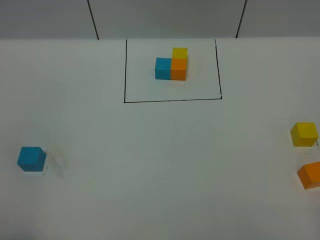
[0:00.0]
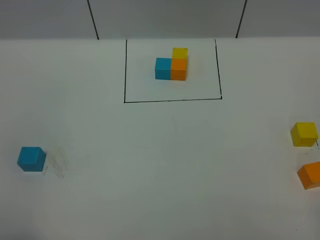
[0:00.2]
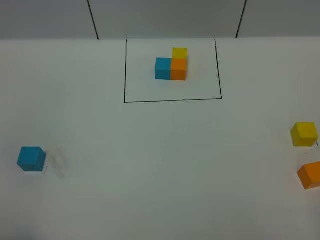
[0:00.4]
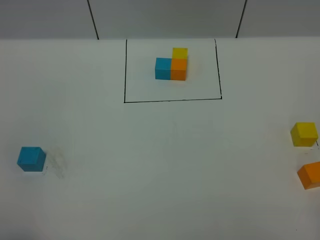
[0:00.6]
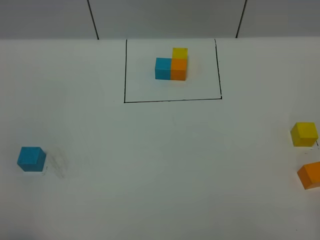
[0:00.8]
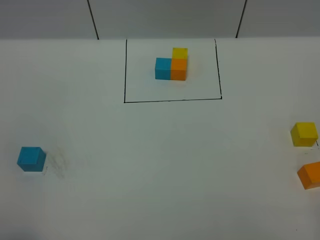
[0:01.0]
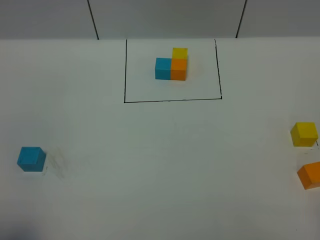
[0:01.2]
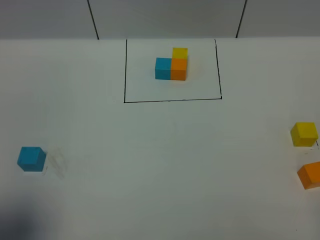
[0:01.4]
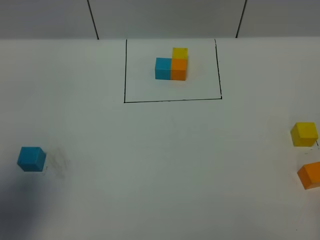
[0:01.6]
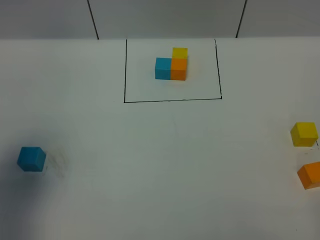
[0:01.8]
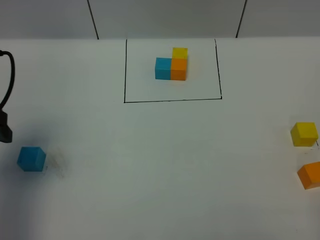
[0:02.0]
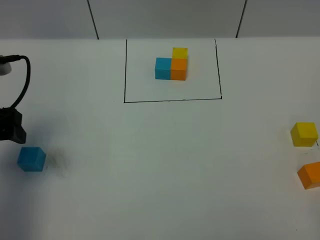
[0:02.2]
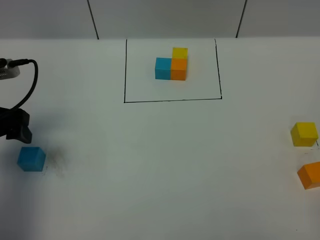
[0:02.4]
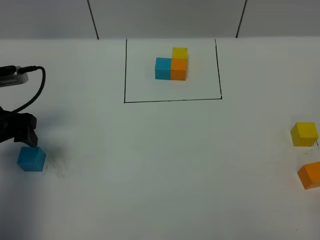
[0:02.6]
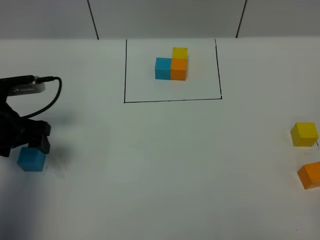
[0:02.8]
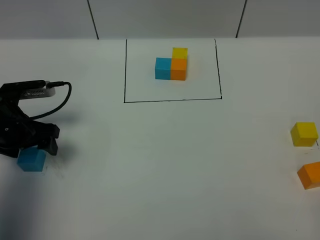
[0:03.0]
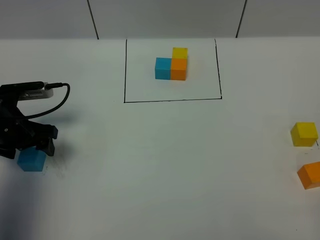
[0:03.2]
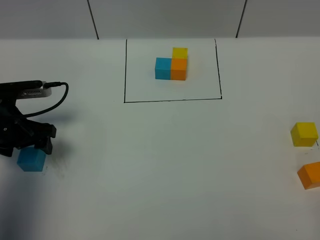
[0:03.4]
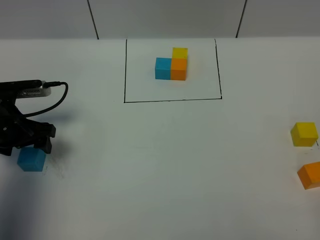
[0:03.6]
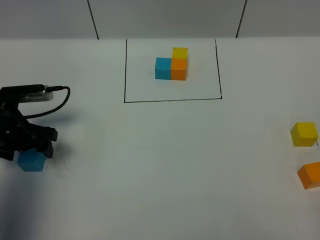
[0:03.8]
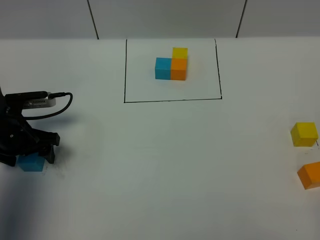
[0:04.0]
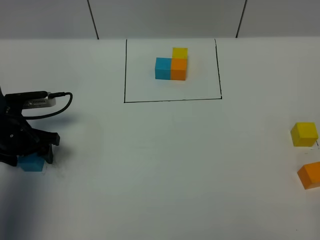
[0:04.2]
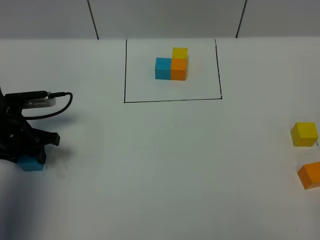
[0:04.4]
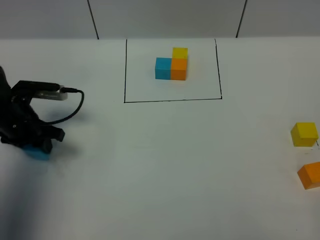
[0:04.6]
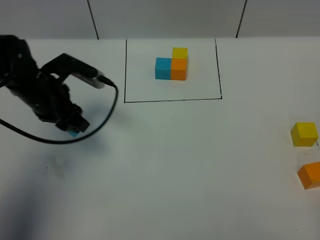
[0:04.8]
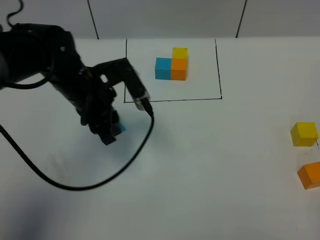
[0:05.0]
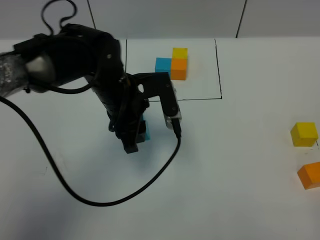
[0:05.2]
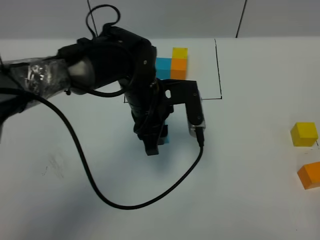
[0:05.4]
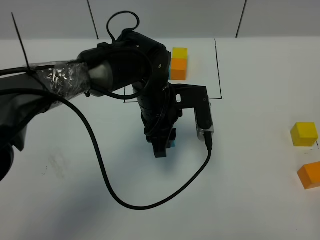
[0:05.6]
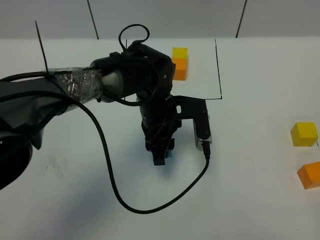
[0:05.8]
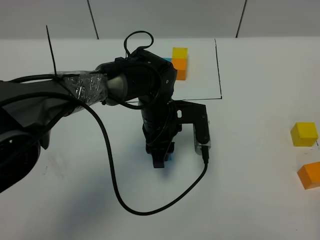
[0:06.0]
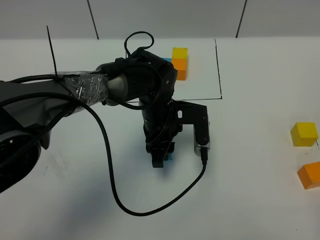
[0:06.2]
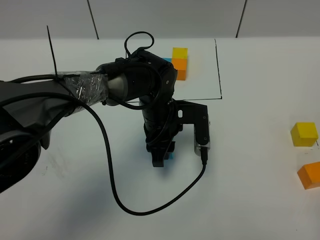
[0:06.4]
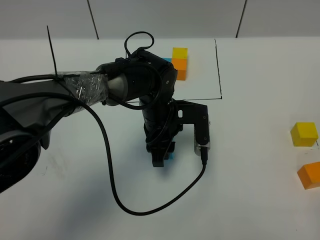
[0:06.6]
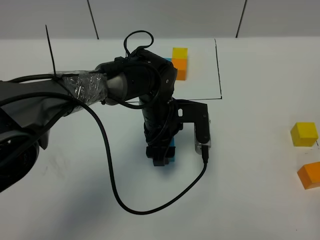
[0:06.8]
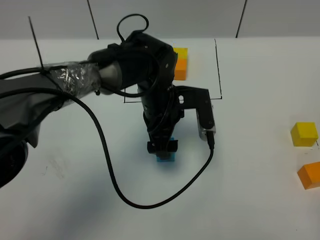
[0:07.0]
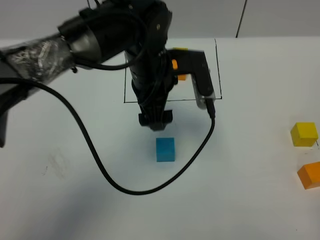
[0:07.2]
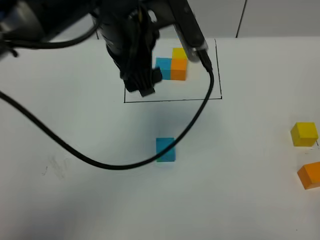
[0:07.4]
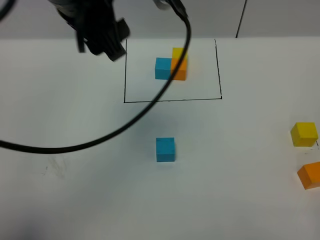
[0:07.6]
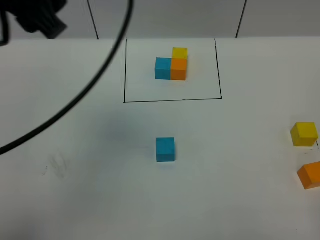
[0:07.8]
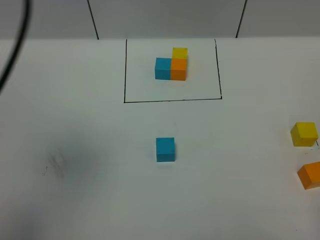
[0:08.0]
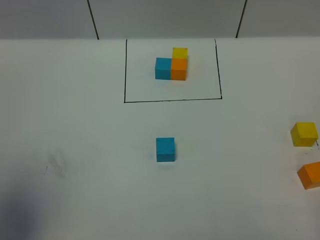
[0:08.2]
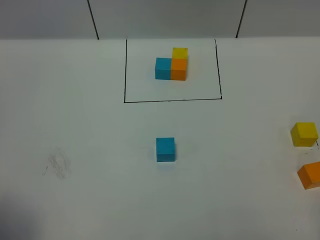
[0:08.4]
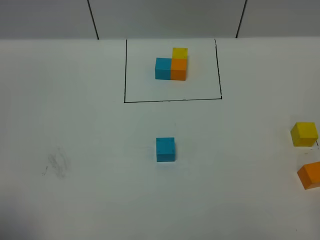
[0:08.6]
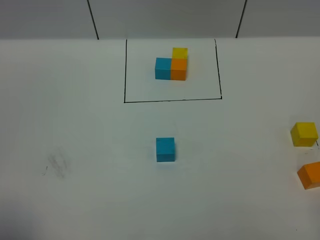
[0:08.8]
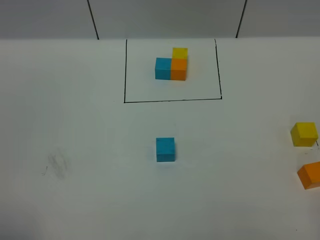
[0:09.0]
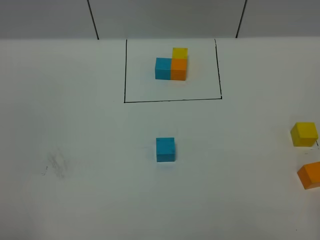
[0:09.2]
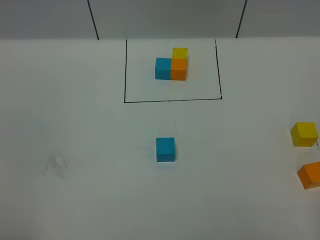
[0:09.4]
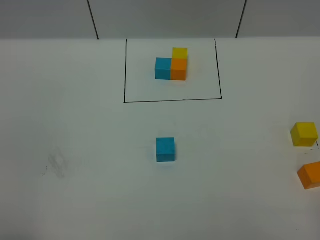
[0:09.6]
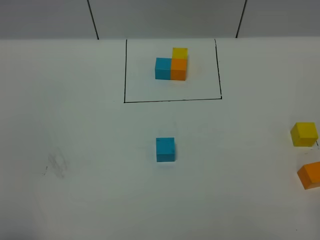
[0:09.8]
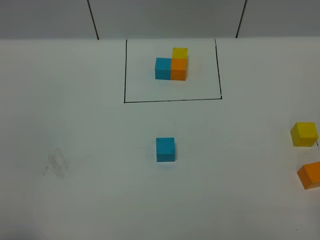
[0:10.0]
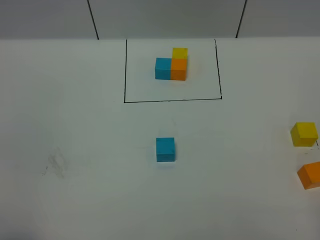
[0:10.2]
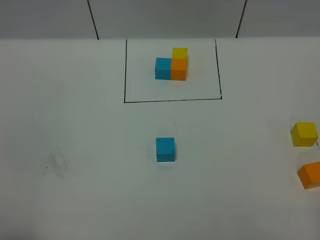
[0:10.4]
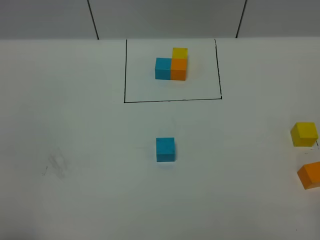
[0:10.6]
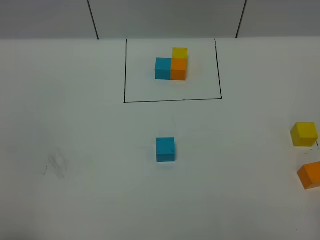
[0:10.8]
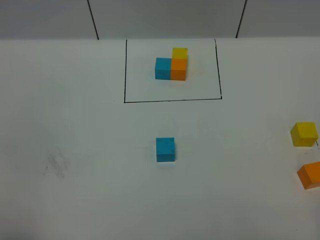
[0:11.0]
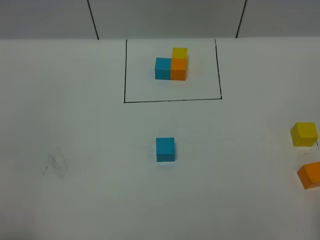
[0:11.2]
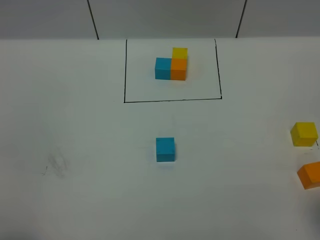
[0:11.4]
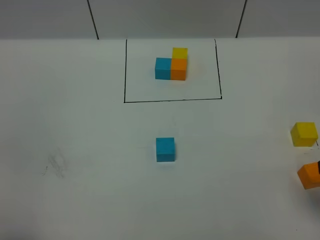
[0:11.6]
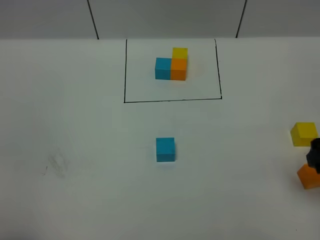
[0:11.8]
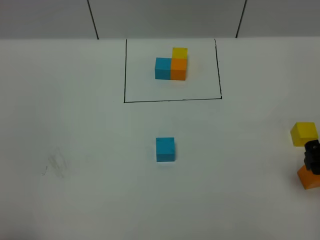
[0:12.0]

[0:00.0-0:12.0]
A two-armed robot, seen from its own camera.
Task of the whole recording: According to the building block template in front, assemble the scattered blocks together.
Step, 0:02.0 to 0:07.6: Put the blue cube in the center of the table.
0:00.0 to 0:01.6: The left gripper heads forward, covering roughly 15 cm, and opens.
0:01.6 to 0:03.0: The left gripper travels downward and forward by some 25 cm.
0:03.0 to 0:04.4: The left gripper closes its fingers.
0:04.4 to 0:06.0: The left gripper heads to the right, covering approximately 30 cm.
0:06.0 to 0:07.6: The left gripper travels upward by some 30 cm, and opens its fingers.
0:07.6 to 0:09.0: The left gripper is displaced backward and to the left by some 35 cm.
0:10.4 to 0:12.0: The right gripper goes approximately 20 cm forward, and opens up.

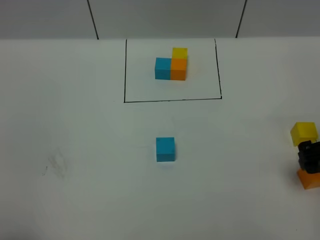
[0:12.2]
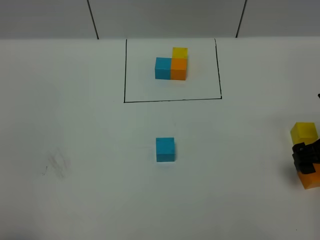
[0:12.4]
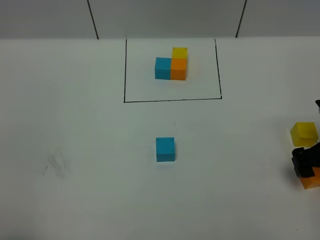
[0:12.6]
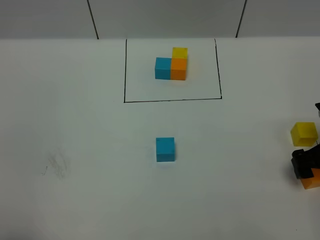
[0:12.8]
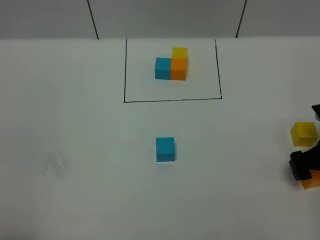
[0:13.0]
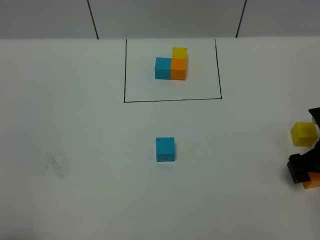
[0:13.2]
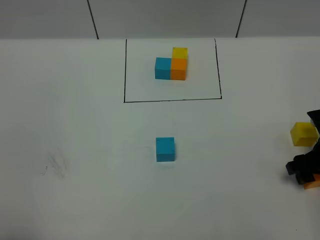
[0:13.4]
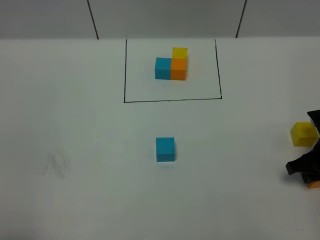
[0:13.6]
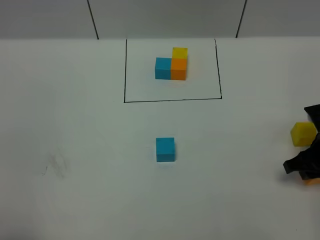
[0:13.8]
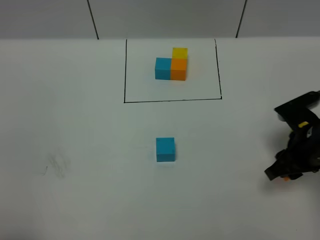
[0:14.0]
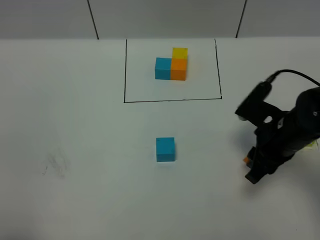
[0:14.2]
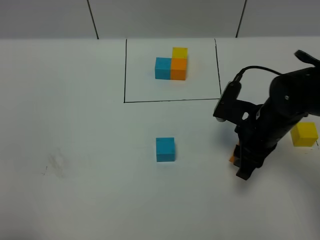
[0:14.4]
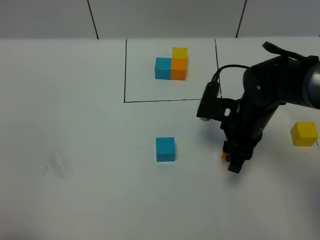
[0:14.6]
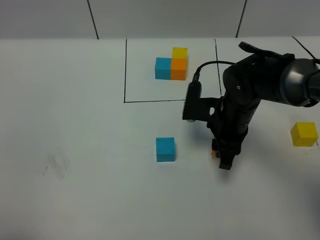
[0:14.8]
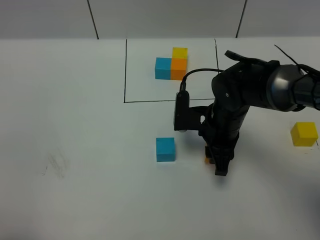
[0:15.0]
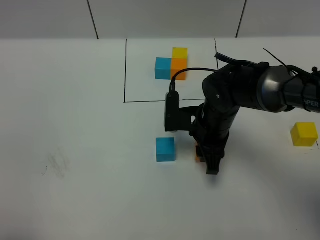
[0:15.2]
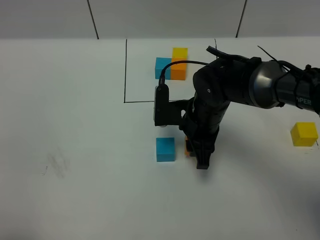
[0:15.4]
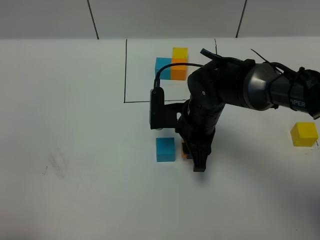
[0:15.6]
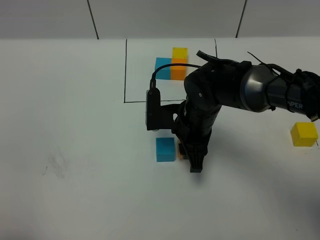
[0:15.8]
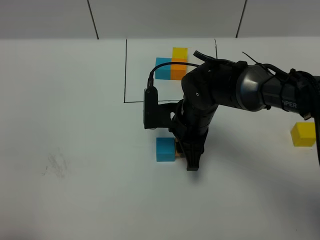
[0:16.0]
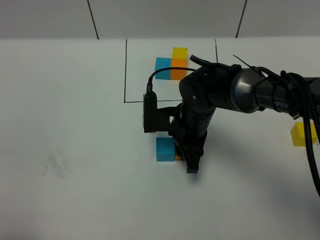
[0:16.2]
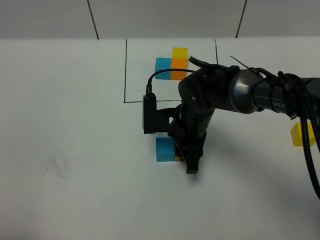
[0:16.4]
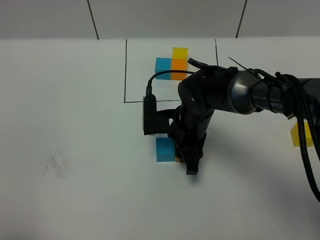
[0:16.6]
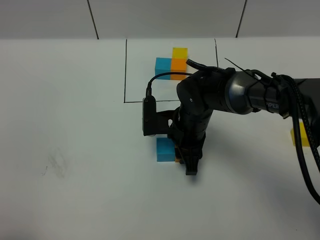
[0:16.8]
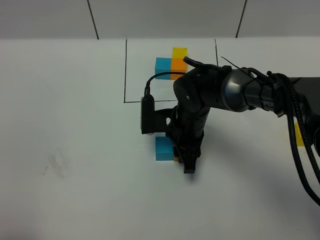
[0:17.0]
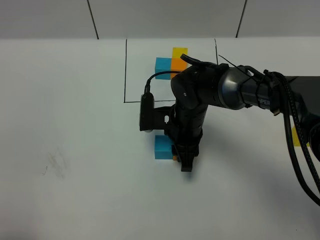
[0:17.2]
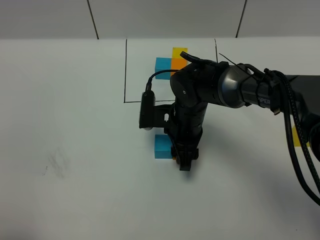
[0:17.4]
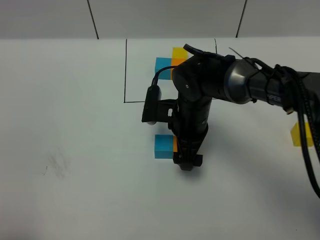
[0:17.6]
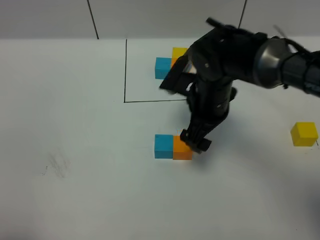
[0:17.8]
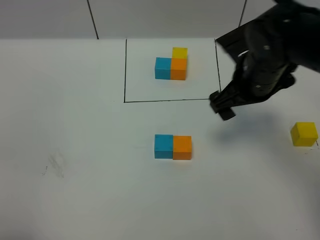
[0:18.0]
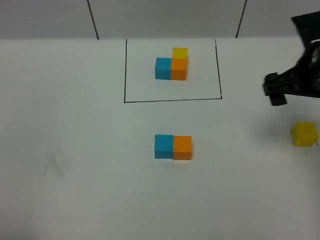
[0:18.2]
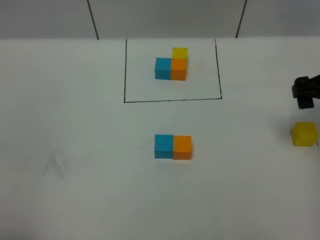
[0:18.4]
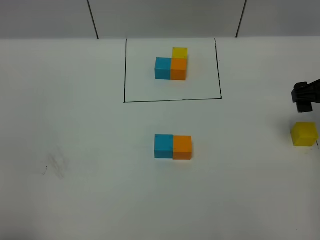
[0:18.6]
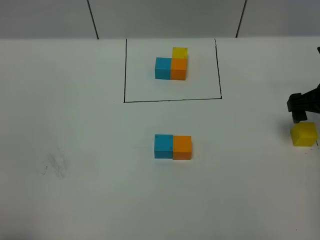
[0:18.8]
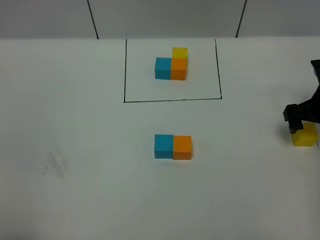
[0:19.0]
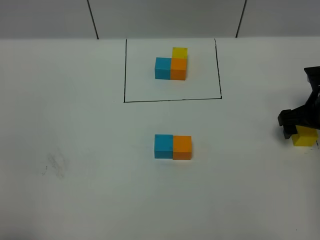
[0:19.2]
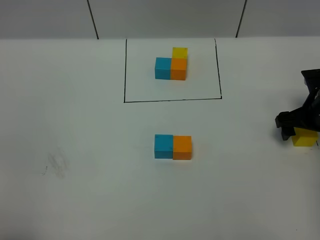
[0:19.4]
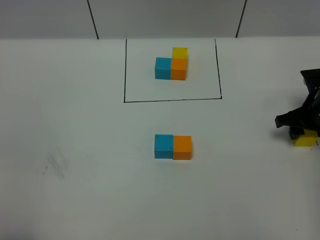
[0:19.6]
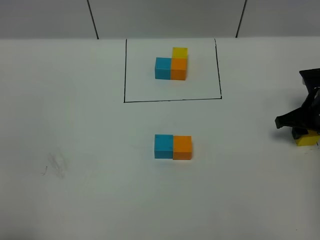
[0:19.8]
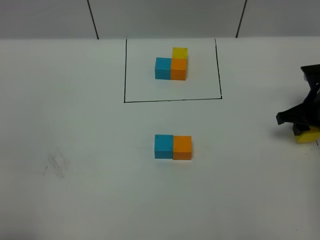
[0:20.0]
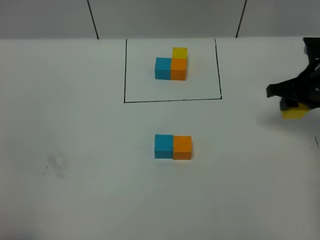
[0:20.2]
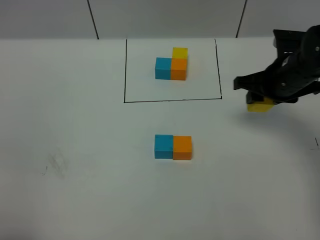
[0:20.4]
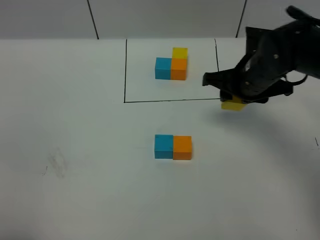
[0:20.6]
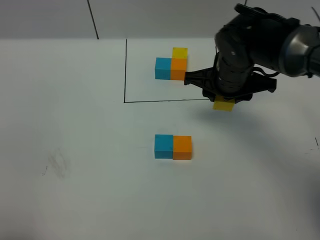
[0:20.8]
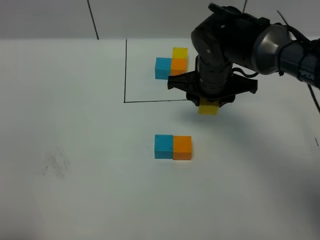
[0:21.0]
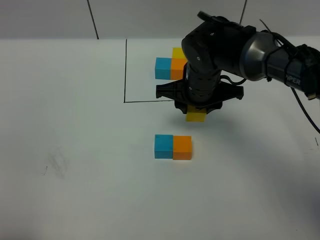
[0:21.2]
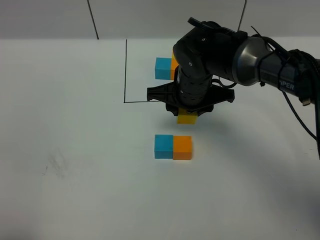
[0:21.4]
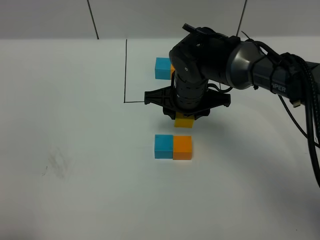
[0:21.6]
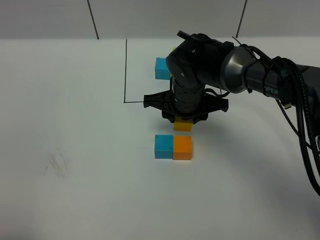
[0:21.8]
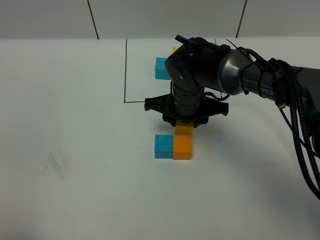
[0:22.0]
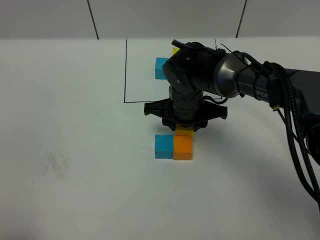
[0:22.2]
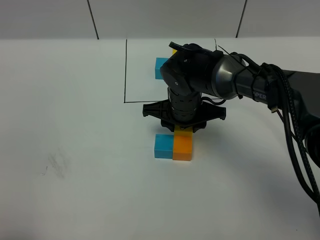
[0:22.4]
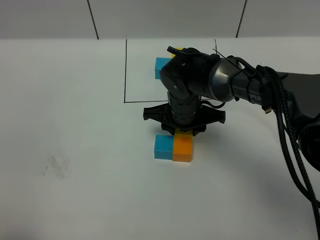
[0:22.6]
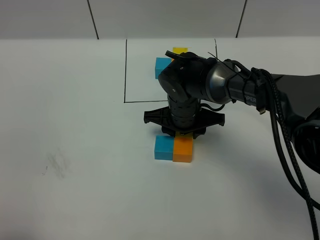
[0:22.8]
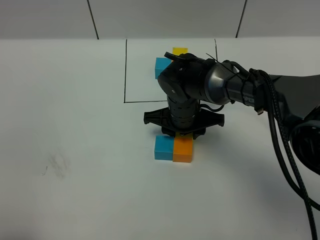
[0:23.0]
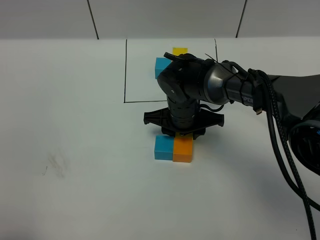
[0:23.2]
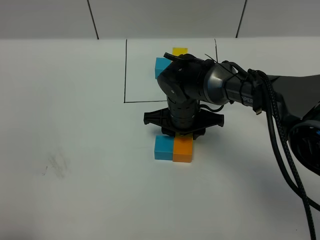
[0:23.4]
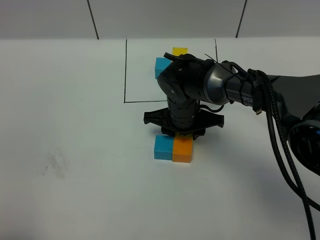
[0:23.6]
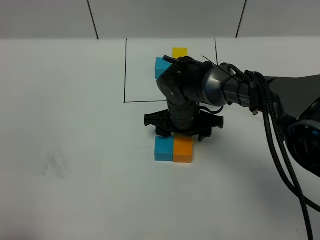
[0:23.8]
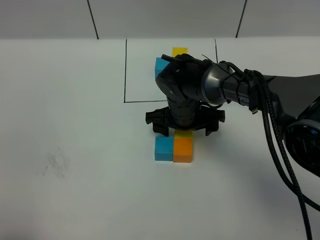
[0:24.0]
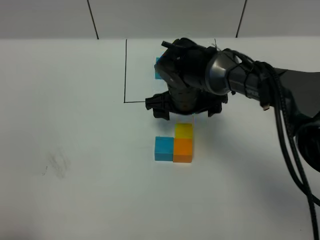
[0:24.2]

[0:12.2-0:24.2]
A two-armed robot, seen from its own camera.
Task of the whole recording: According to the building block template in front, assemble the scattered blocks together.
Step, 0:12.2 to 0:18.0: Put the orange cube on the right of the blue cube.
Step, 0:18.2 to 0:24.2: Put the yellow cube in the front of the orange cube.
0:12.2 to 0:13.8: The right gripper shifts approximately 5 cm downward, and closes its fingers.
0:13.8 to 0:15.2: The right gripper shifts approximately 20 cm to the left.
0:15.2 to 0:16.6: The grippers make only small movements.
0:16.6 to 0:18.2: The right gripper heads to the right and upward, covering approximately 25 cm, and opens its fingers.
0:18.2 to 0:19.8: The right gripper travels downward and to the right by about 15 cm, and closes its fingers.
0:19.8 to 0:21.2: The right gripper moves to the left, some 25 cm.
0:21.2 to 0:22.6: The right gripper moves downward, some 5 cm.
0:22.6 to 0:24.2: The right gripper opens up.
